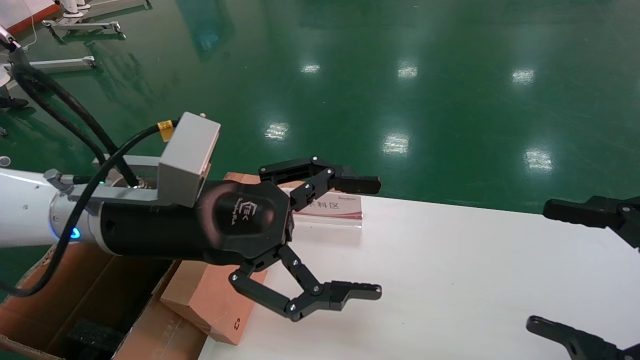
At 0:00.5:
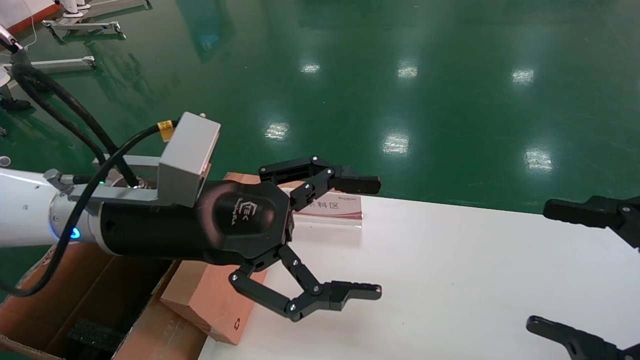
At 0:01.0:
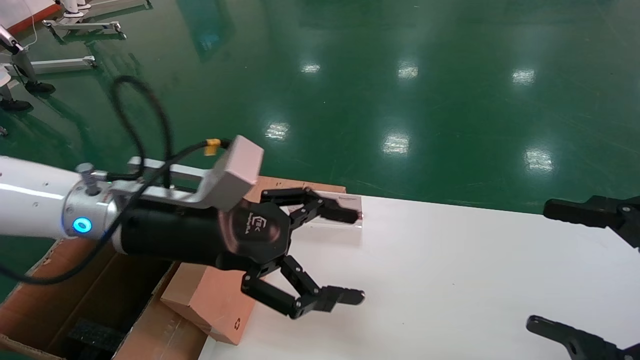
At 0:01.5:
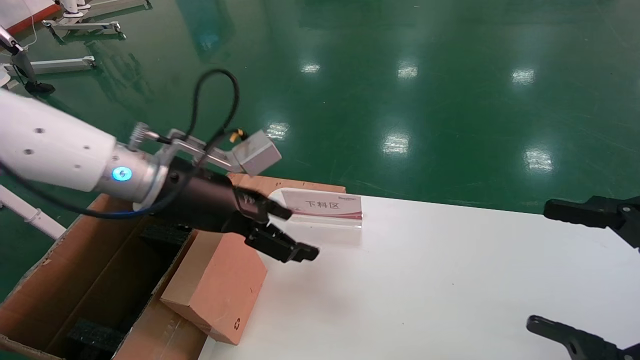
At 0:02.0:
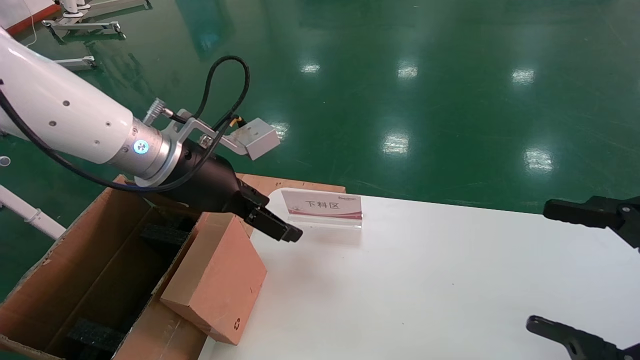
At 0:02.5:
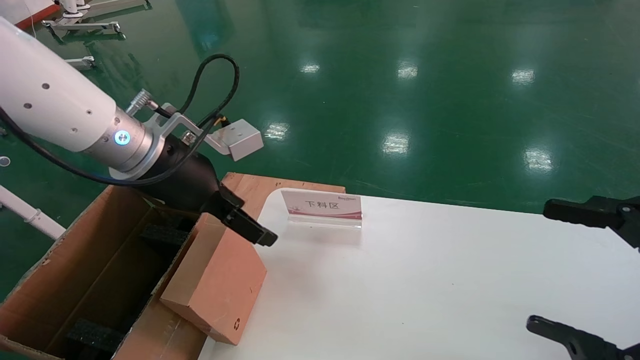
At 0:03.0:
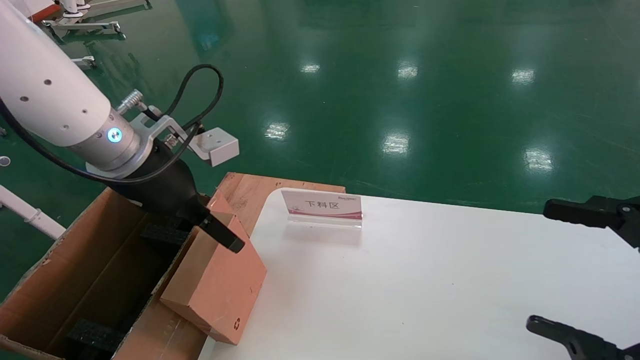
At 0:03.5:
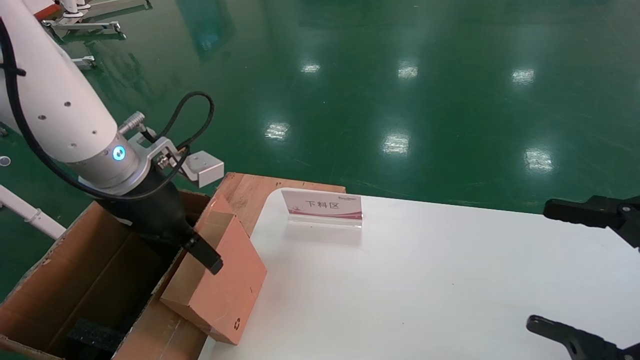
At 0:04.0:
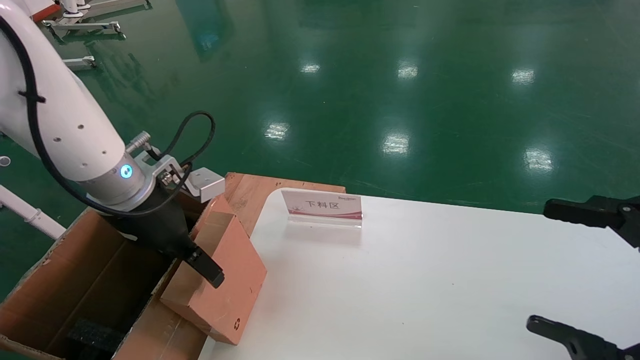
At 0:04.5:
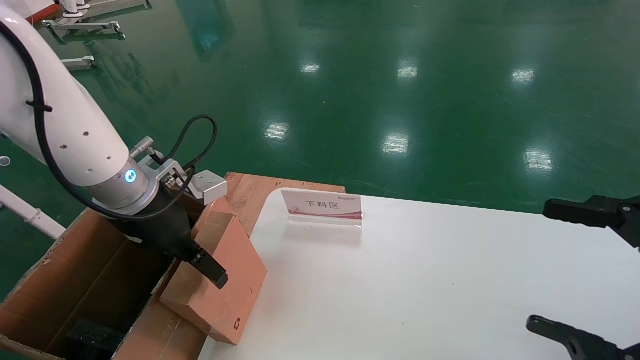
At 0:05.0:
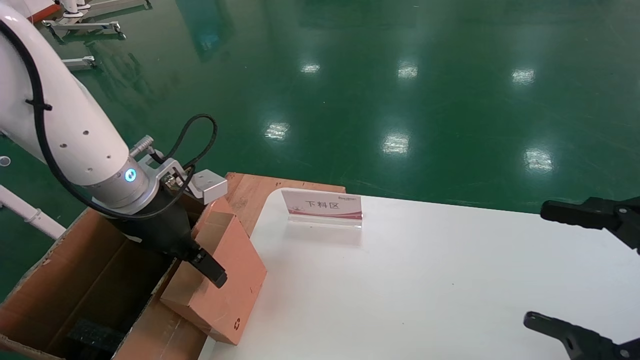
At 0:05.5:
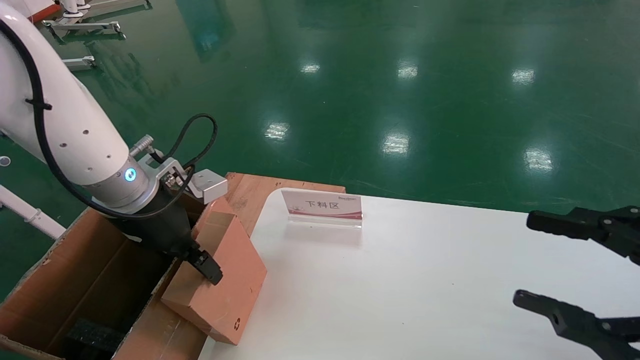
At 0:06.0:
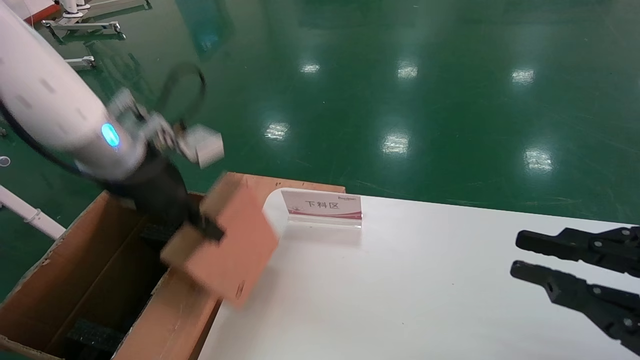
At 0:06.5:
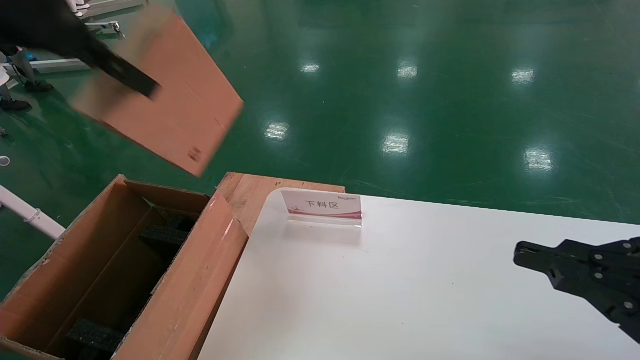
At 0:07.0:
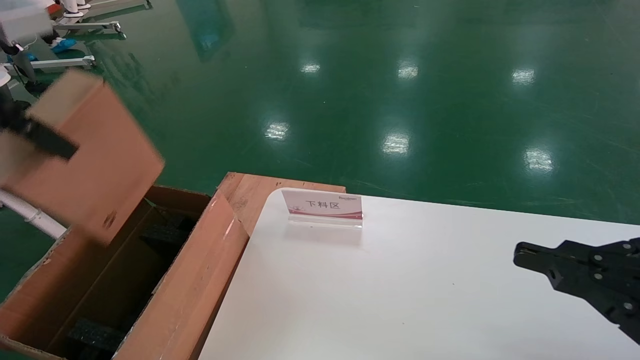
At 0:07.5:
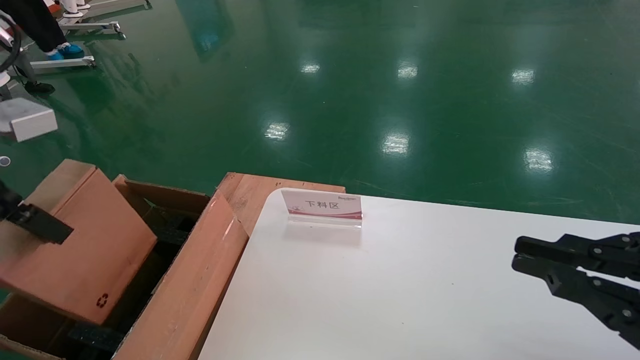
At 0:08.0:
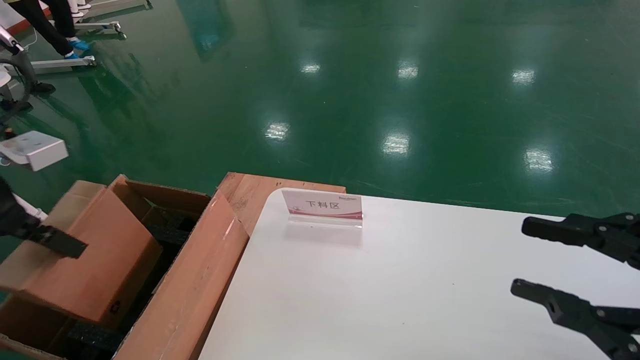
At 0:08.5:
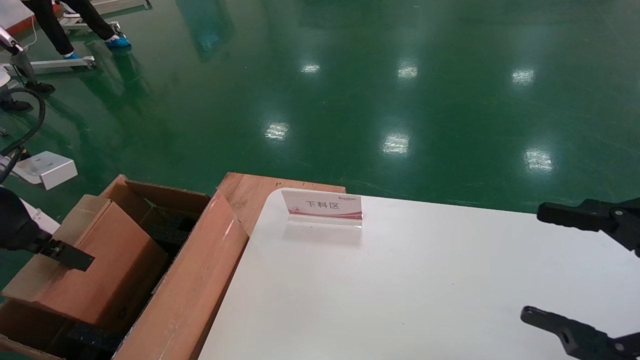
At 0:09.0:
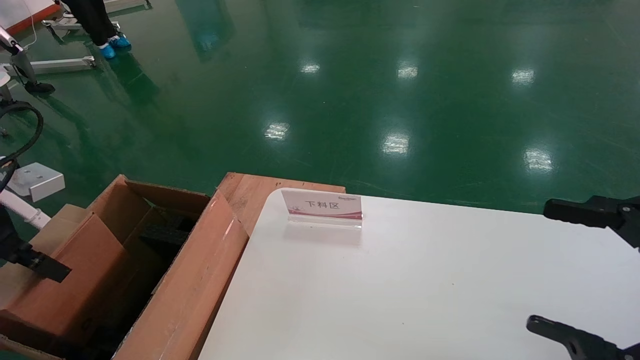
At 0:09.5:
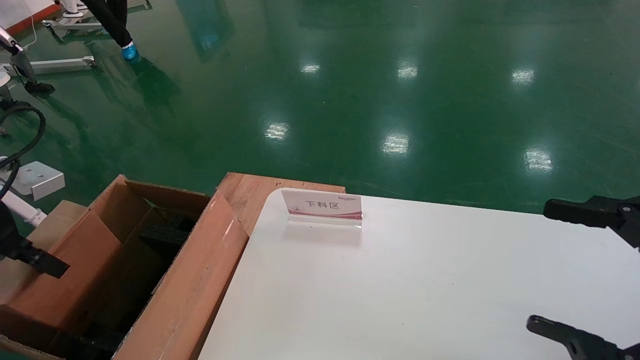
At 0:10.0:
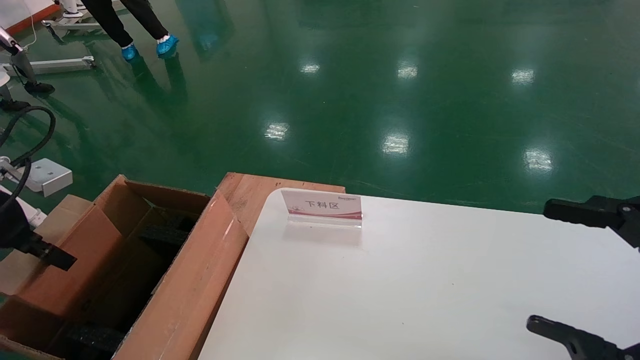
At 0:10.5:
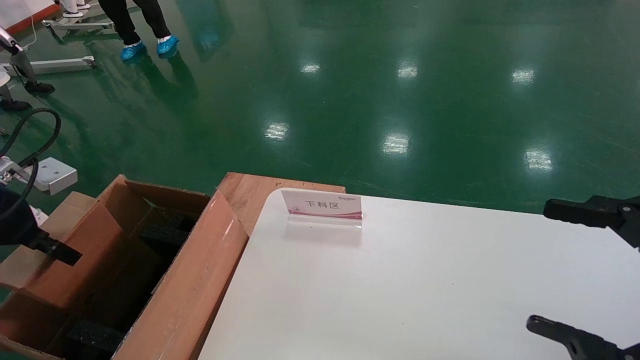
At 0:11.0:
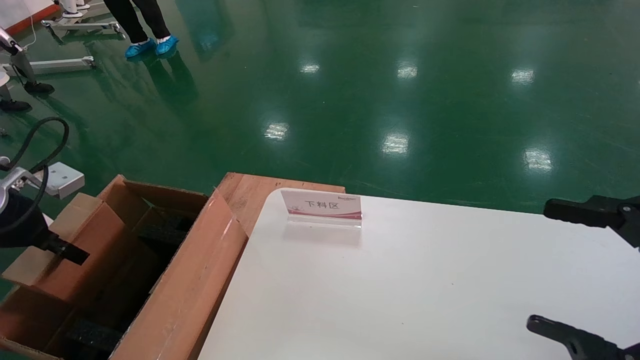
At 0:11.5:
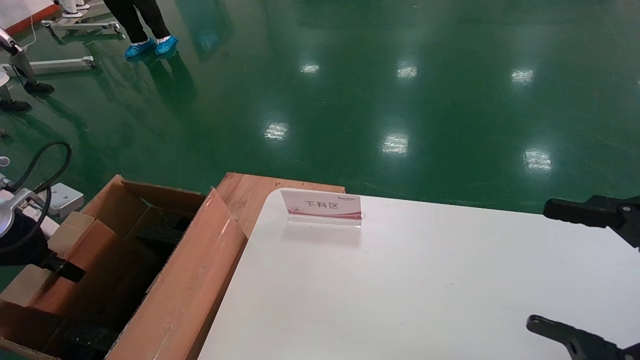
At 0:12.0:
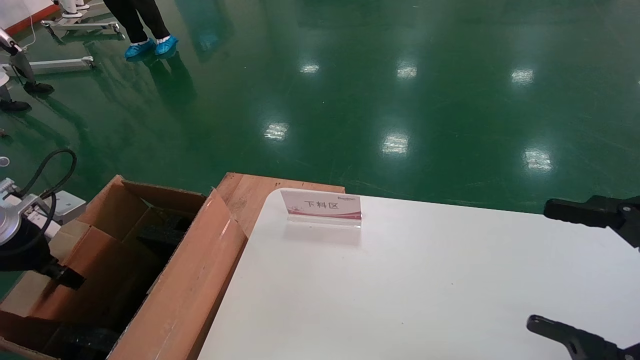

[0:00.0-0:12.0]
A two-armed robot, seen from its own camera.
Task of the whole recording: pick up the small cardboard box and load it into the large cardboard box.
Step, 0:01.5 to 0:05.5: Pick up the mouse and power cord box.
0:00.0 to 0:02.0: The left gripper is displaced forward by some 5 cm.
0:04.0 to 0:06.0: The left gripper shifts about 5 cm upward, and closes; the right gripper closes.
0:06.0 to 0:08.0: The left gripper moves to the left and backward, approximately 15 cm, and travels upward and back again, roughly 15 cm each way.
0:08.0 to 0:10.0: The left gripper moves downward, roughly 5 cm. Meanwhile the right gripper opens up.
0:10.0 to 0:12.0: The left gripper heads downward, covering approximately 5 cm.

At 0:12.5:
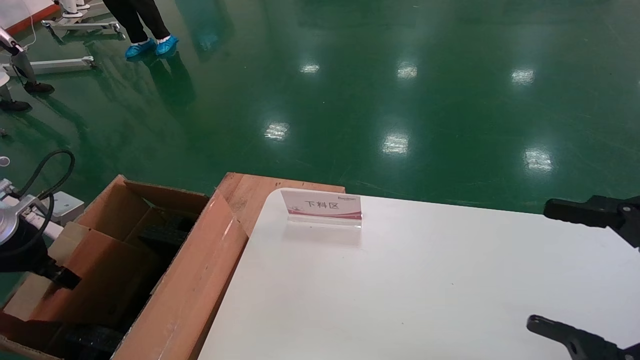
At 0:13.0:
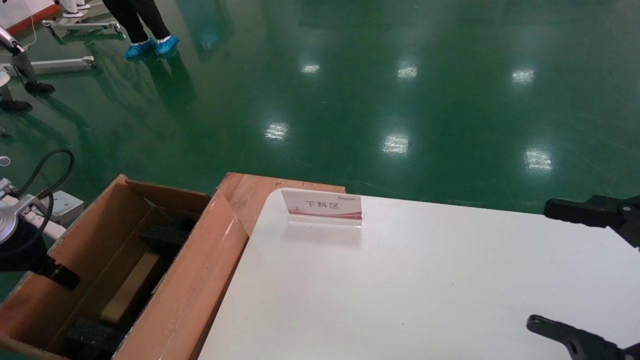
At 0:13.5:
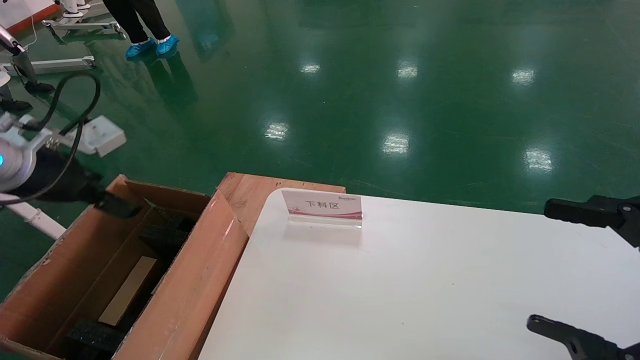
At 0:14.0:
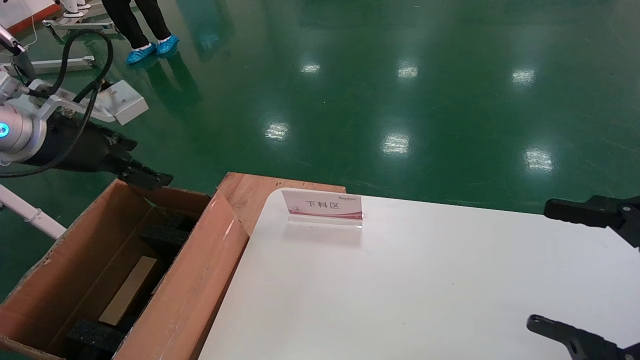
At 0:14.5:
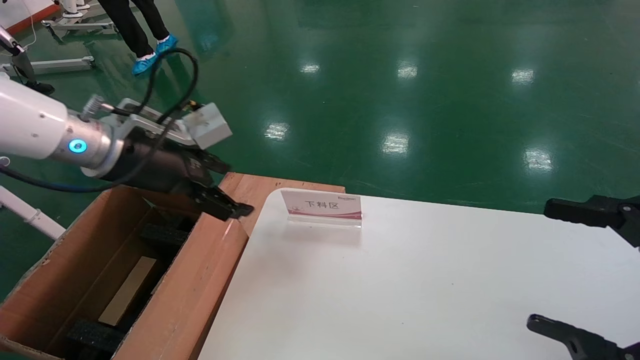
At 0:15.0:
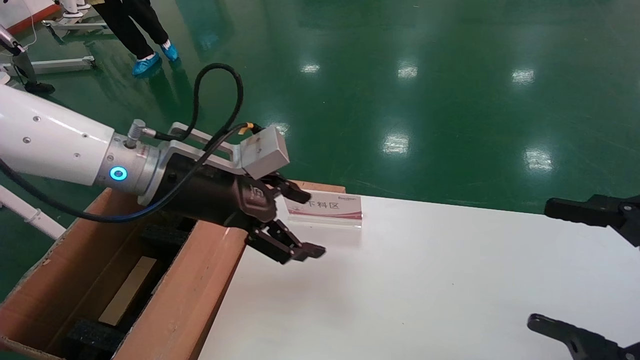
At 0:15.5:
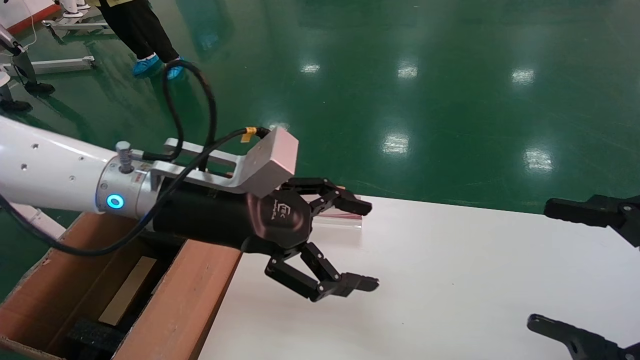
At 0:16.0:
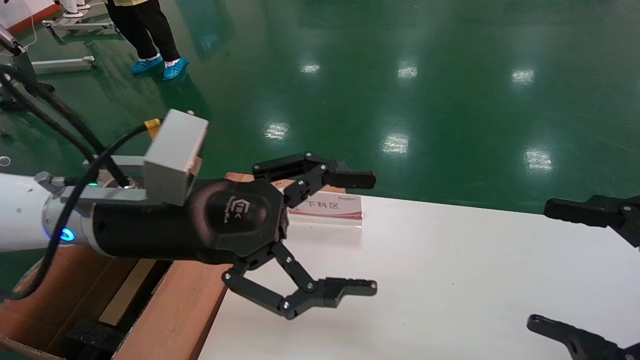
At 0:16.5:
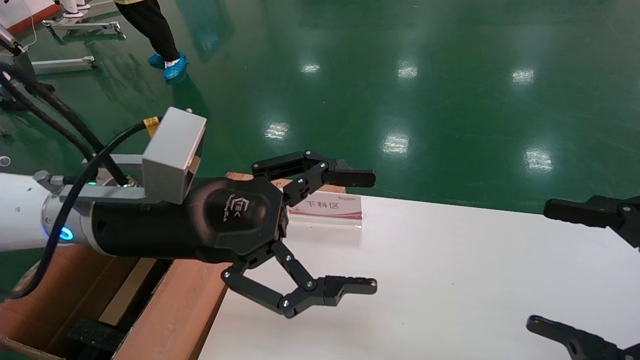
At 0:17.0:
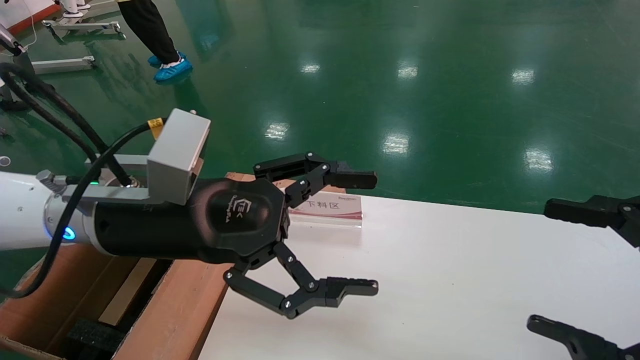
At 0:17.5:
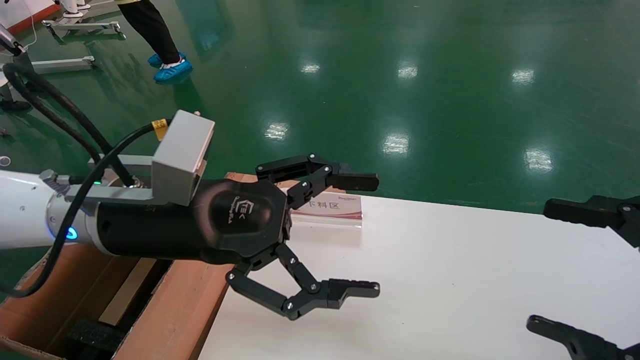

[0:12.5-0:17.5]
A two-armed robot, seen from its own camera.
Task of the whole recording: pick up the small cardboard box and load it into the large cardboard box.
0:12.5 to 0:15.0: The left gripper goes approximately 25 cm to the right, and opens.
0:15.0 to 0:17.5: The left gripper is displaced backward by about 5 cm.

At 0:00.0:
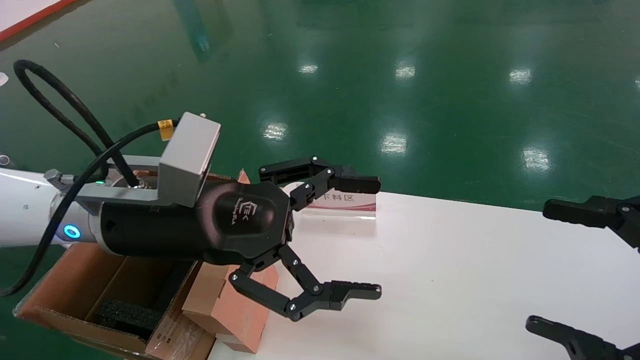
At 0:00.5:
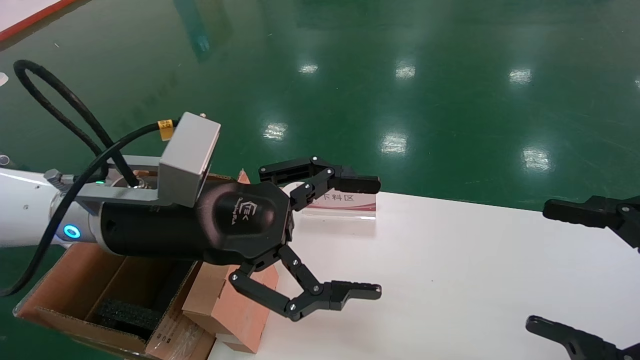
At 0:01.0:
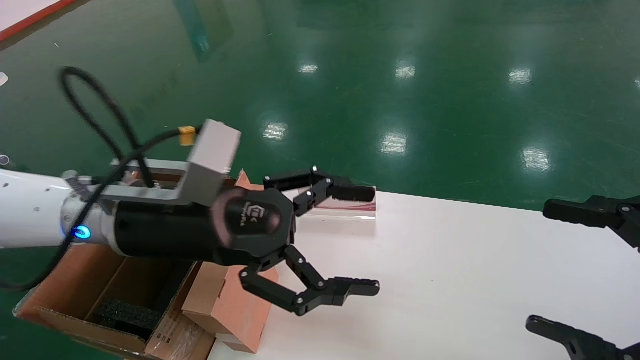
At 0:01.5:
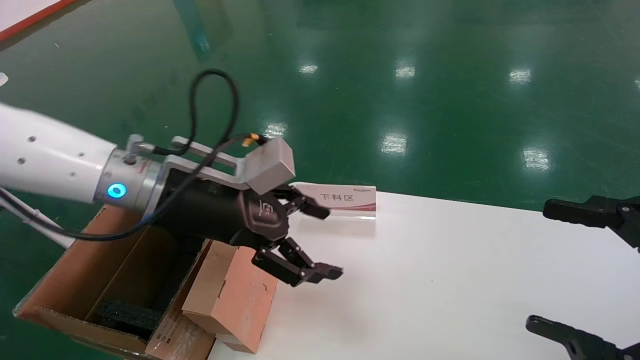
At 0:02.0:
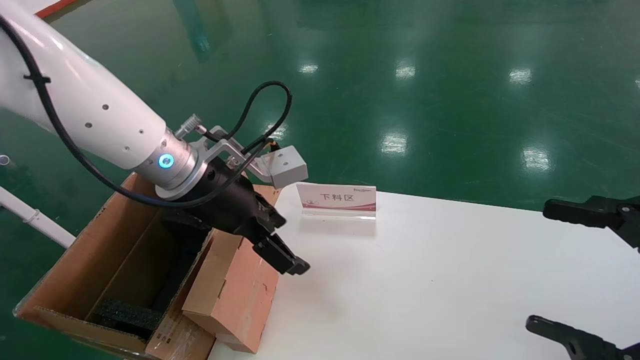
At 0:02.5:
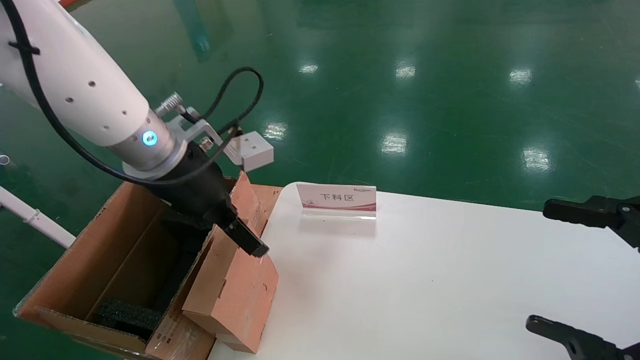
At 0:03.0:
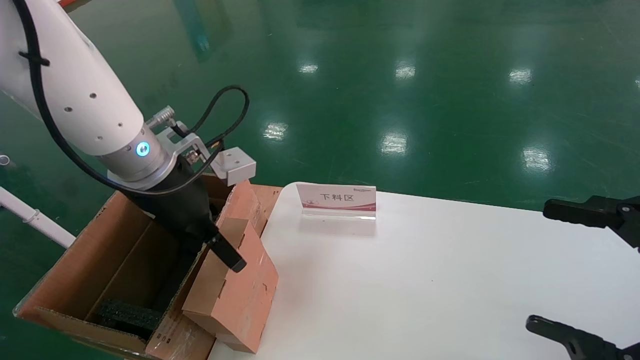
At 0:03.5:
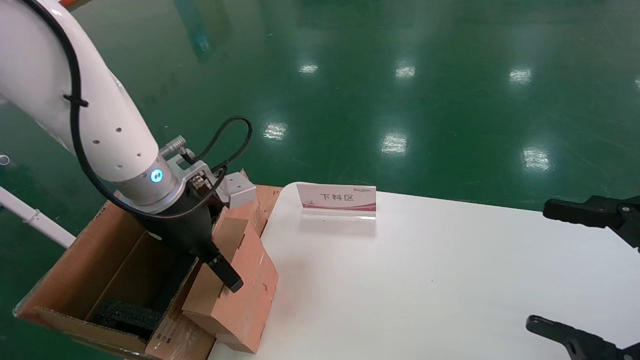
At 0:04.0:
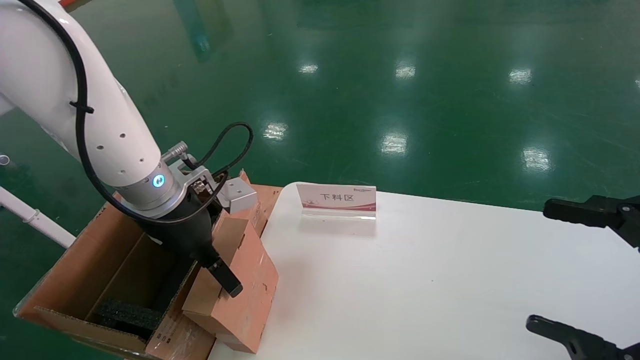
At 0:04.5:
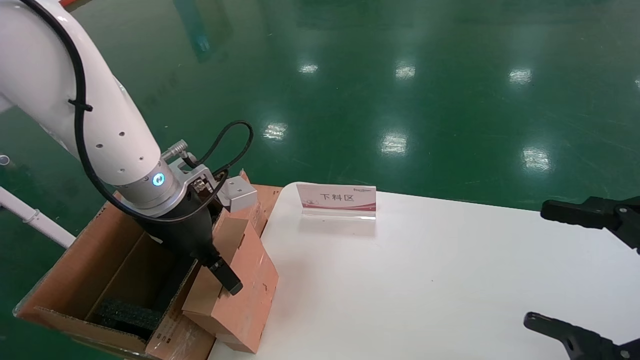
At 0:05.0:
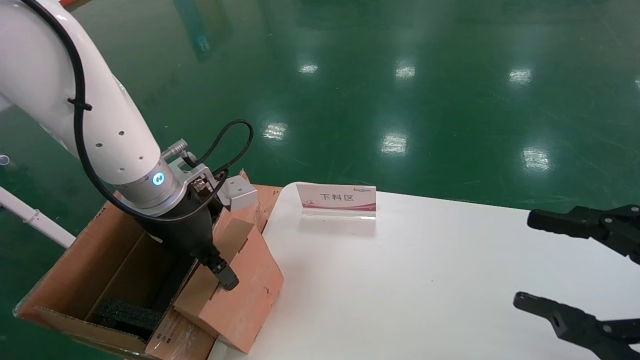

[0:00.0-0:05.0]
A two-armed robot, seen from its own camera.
Task of the whole recording: pick up the small cardboard box and load it into the large cardboard box.
Step, 0:01.0 to 0:05.0: Pick up the mouse and power cord box.
0:00.0 to 0:02.5: The left gripper is displaced forward by roughly 5 cm.
0:02.5 to 0:05.0: The left gripper changes place by approximately 5 cm, and closes.
